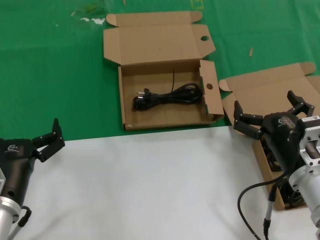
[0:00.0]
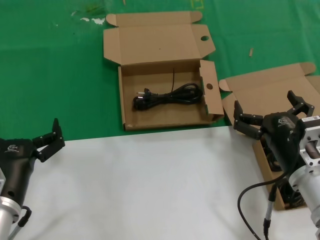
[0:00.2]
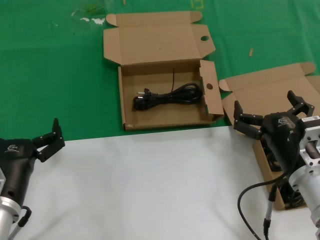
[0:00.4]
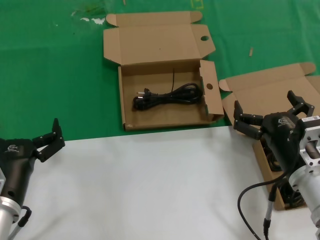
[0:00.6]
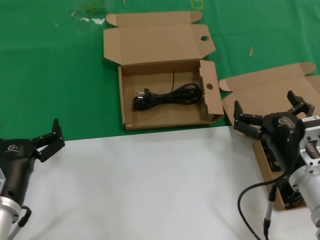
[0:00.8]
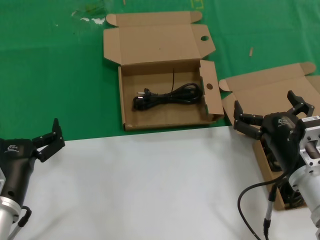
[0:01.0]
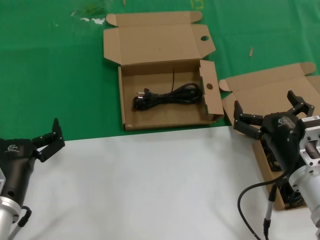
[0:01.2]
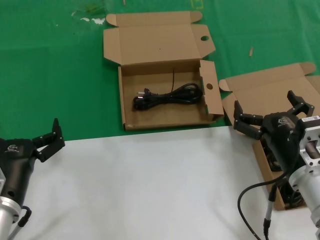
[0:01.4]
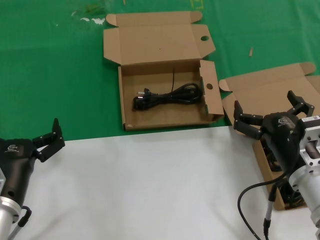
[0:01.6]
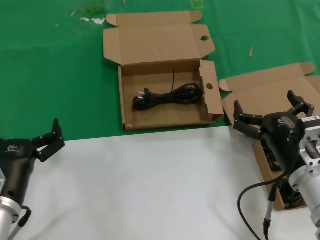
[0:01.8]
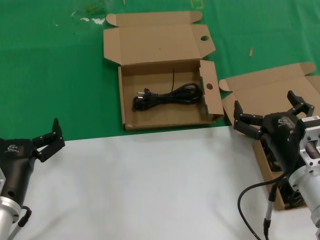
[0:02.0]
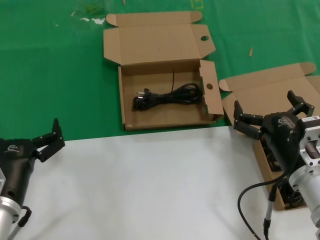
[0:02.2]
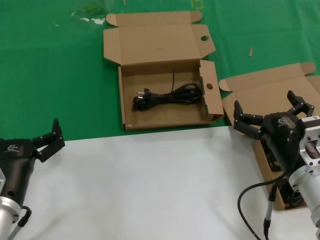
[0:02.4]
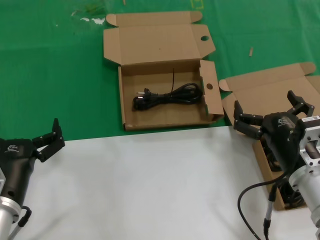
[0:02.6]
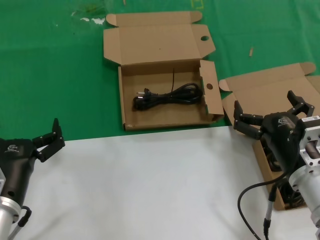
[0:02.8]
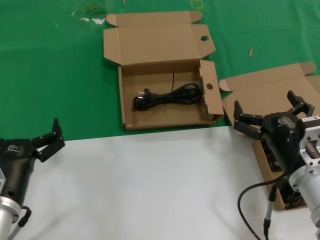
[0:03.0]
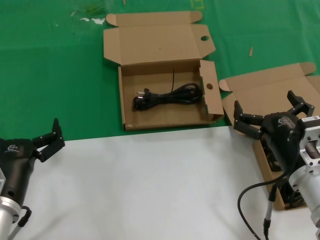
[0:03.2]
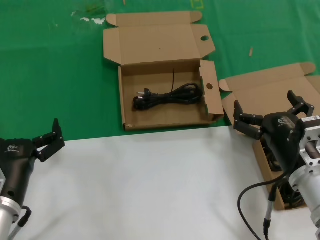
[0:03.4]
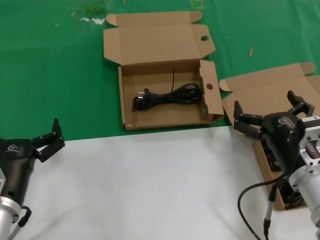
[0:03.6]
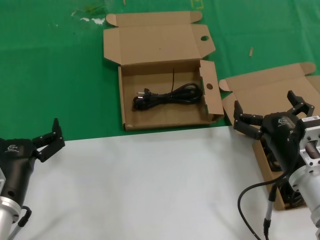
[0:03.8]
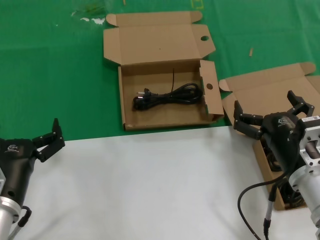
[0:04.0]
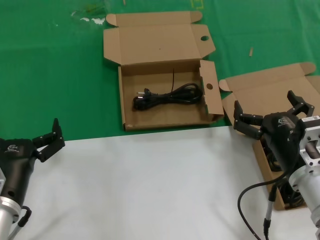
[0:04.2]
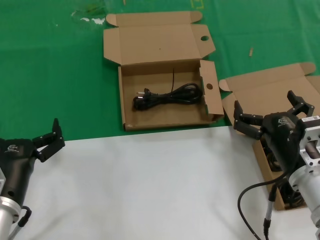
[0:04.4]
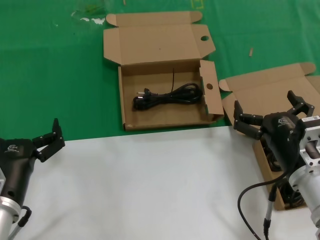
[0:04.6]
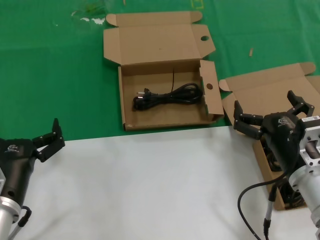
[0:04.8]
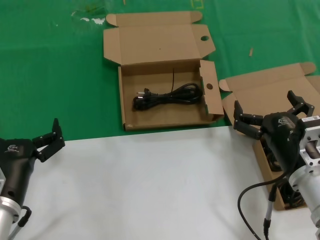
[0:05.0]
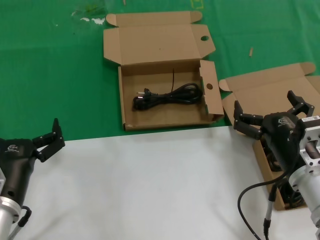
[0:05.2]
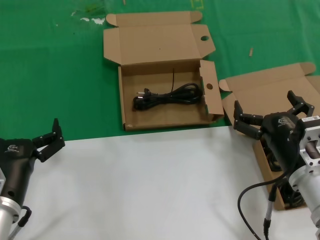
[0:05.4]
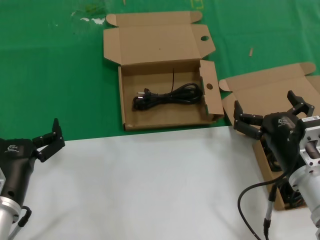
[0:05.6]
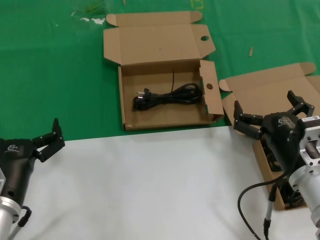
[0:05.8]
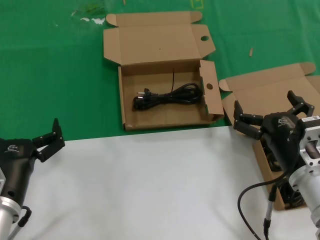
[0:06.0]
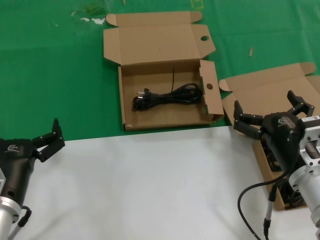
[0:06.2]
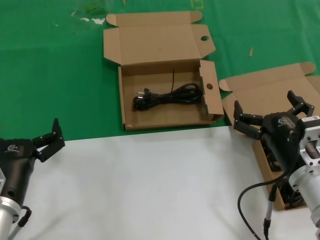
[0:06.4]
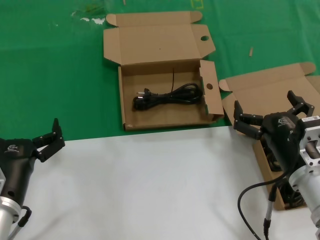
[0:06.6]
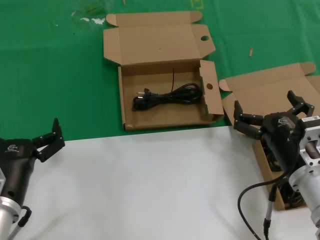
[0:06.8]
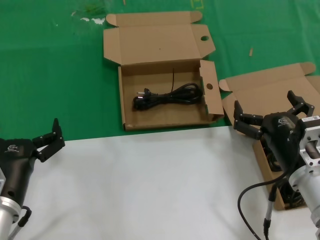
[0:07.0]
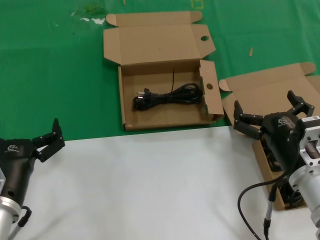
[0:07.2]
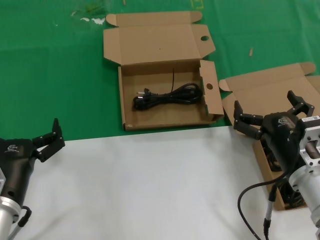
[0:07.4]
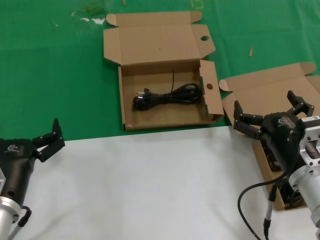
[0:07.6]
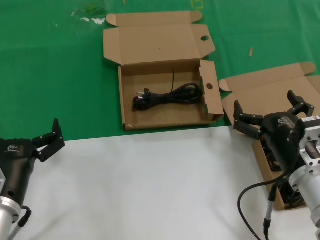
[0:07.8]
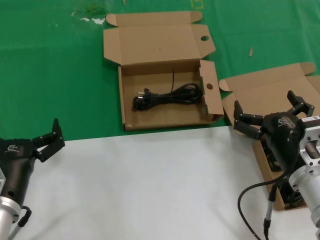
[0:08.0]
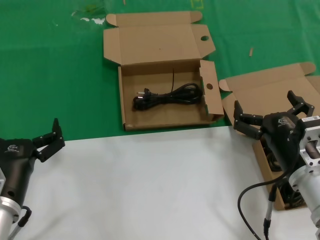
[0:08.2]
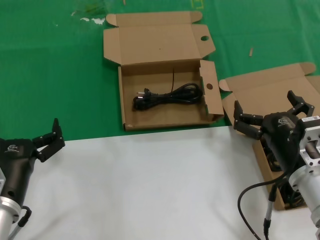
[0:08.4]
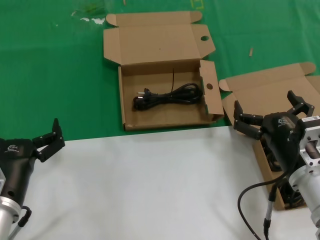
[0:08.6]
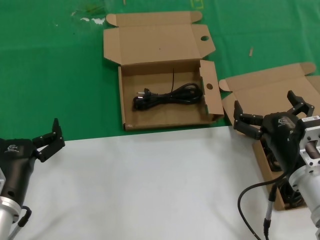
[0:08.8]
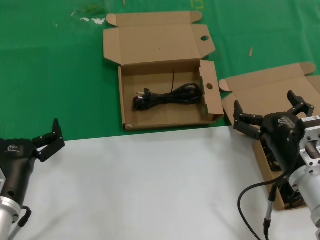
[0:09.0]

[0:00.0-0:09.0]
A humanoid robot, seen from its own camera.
Task of the whole recording: take the parts from the box containing them and put them into an empty box.
0:00.0 to 0:09.0: Both hands stay put.

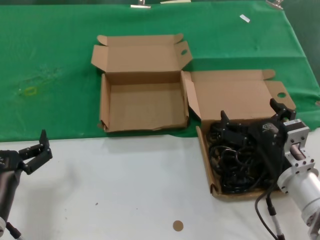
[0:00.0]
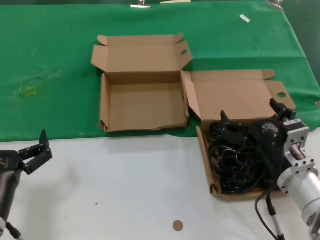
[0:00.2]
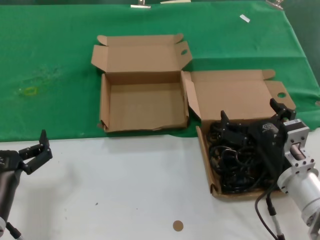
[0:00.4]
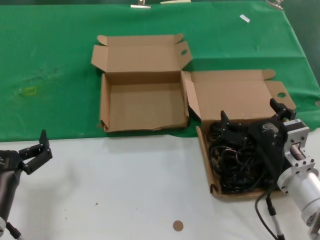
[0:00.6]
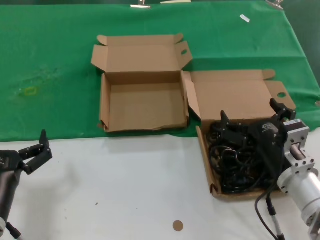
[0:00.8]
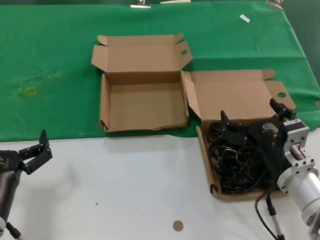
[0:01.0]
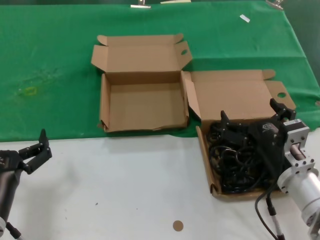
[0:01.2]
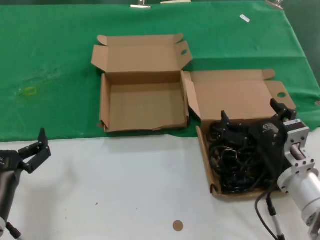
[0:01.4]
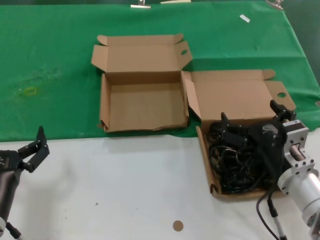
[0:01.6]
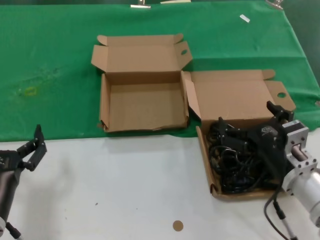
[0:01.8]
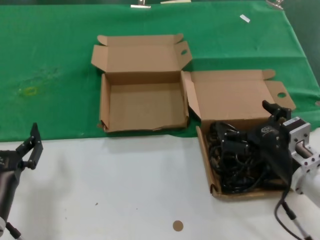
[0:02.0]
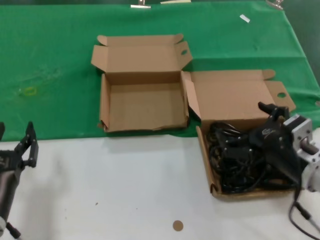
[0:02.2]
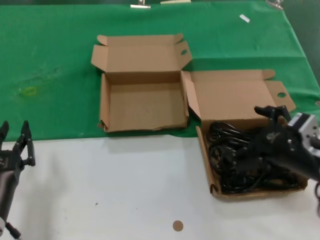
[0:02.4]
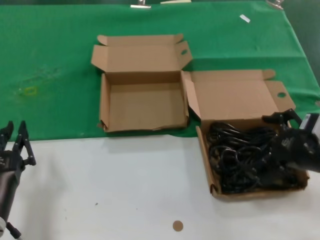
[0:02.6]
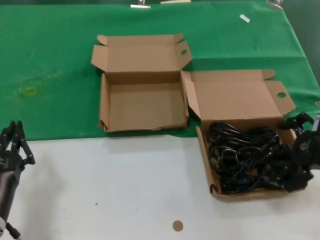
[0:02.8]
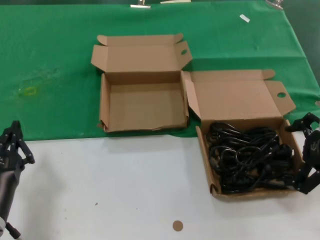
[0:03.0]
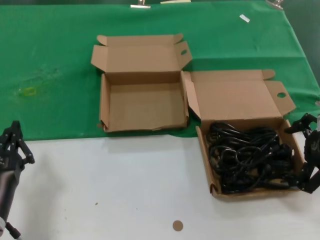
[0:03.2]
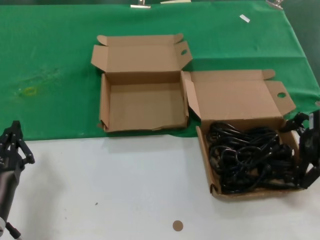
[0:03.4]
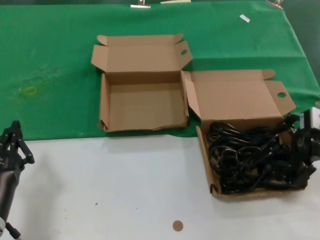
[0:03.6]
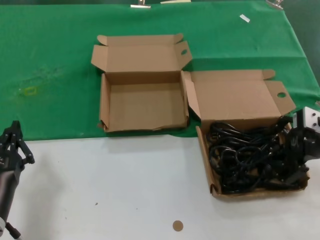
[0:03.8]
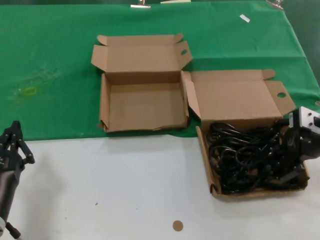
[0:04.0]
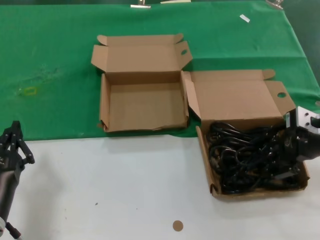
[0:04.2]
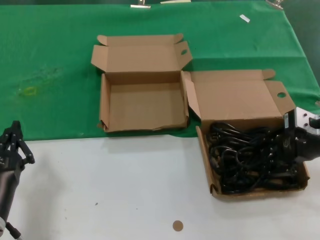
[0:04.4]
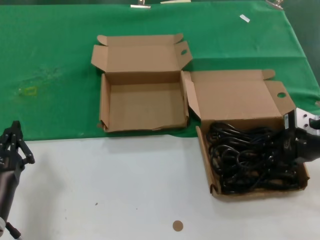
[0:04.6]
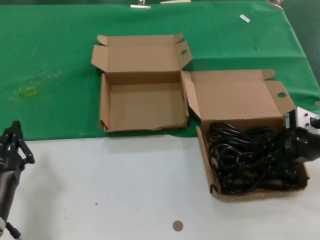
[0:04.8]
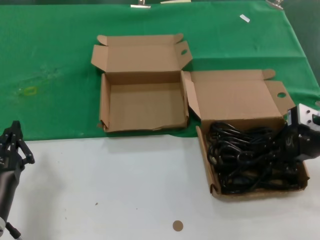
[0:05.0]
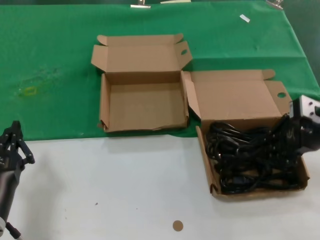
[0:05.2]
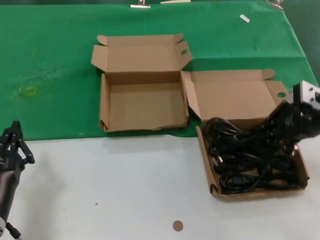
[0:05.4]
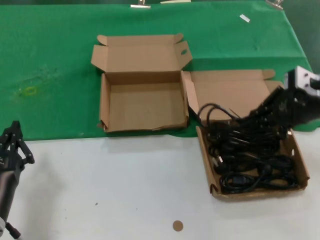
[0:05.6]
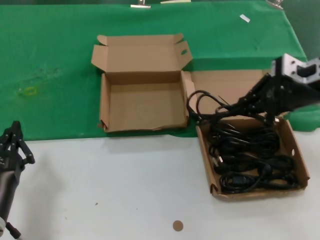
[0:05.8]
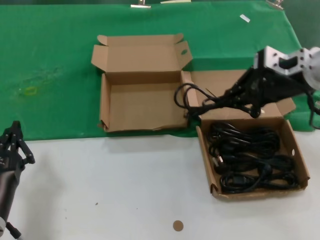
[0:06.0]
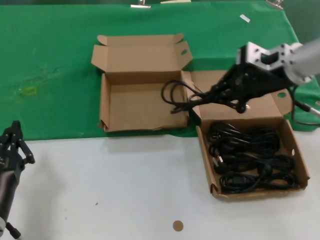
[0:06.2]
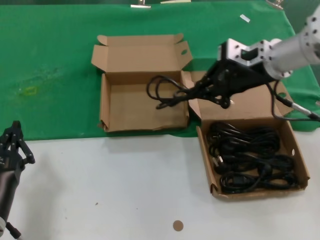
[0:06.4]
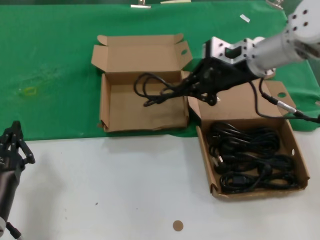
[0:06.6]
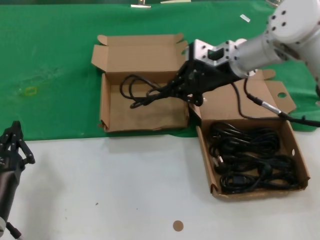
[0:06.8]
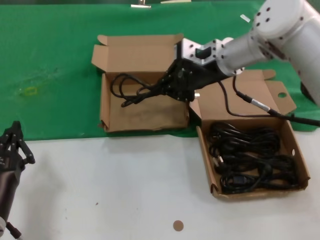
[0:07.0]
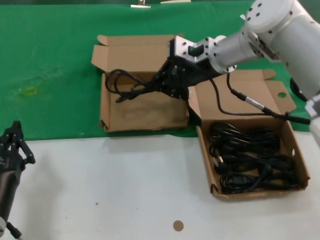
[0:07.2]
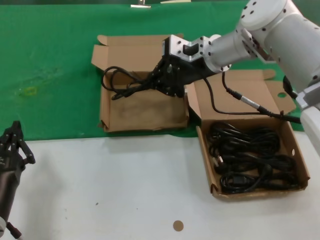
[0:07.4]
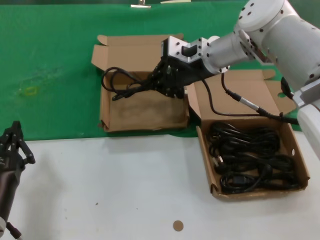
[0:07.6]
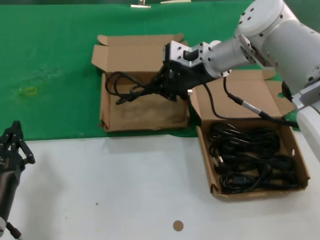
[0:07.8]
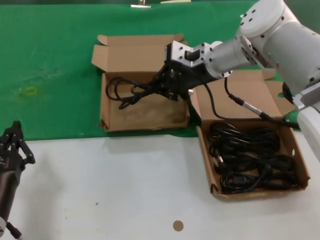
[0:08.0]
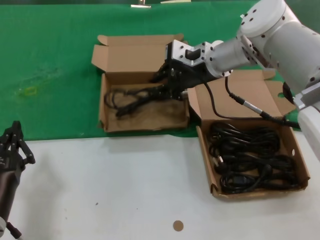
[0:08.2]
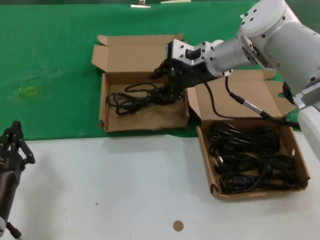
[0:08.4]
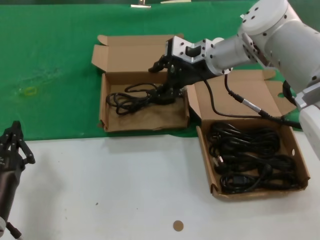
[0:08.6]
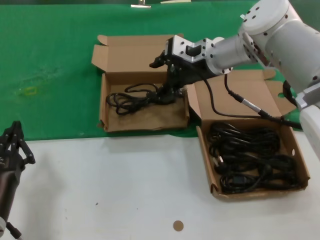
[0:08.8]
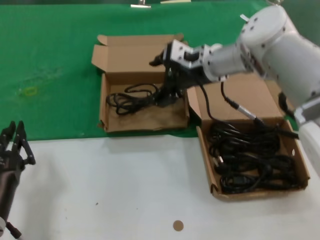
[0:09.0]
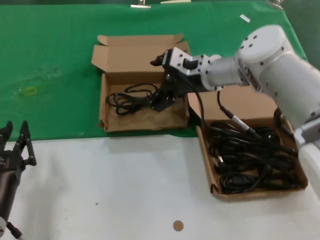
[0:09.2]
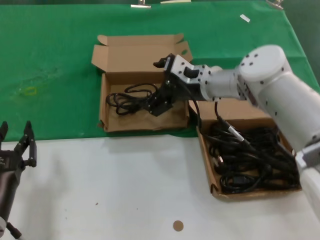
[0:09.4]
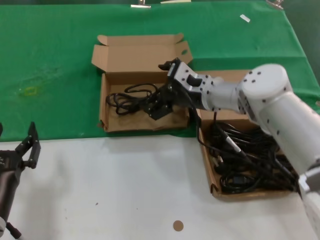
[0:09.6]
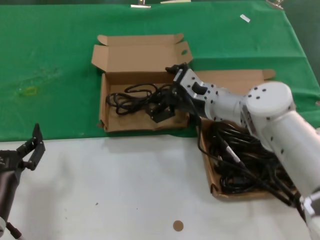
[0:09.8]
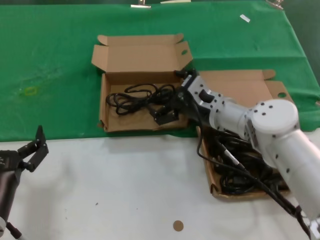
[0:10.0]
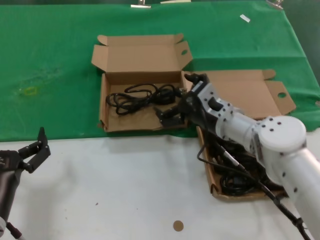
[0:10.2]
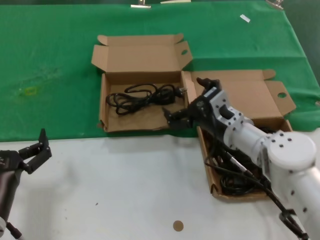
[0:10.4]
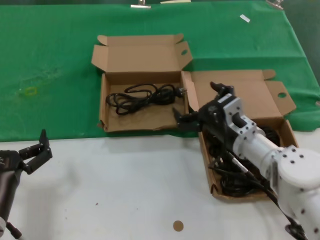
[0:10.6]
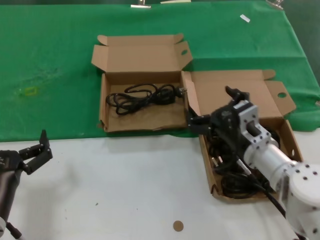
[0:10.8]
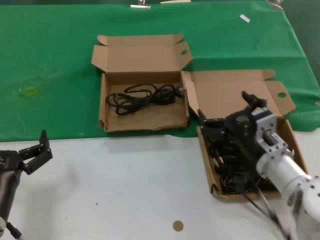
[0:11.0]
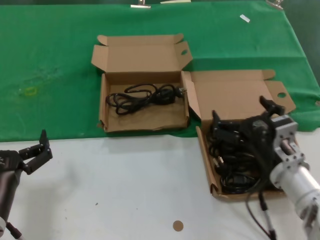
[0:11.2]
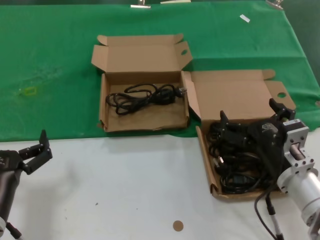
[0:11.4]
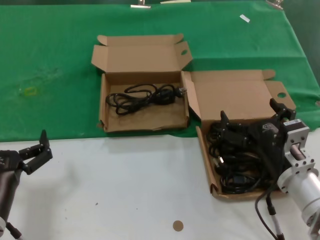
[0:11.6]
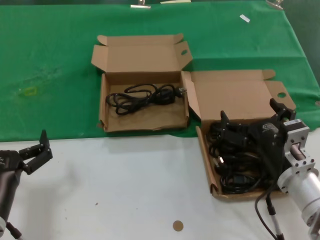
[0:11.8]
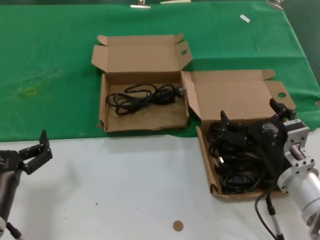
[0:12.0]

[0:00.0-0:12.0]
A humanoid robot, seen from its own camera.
Task of the whole recording: take the parts from the box containing them and put them into an empty box.
Step, 0:00.0 to 0:04.6: Grasp the data cable.
Step, 0:04.8 to 0:08.2: Place the data cable in the another box.
0:00.0 to 0:01.6: The two hands keep their place.
0:01.6 to 0:03.0: The right hand travels upward and to the right by approximately 20 cm.
0:03.0 to 0:04.4: The right hand travels forward by roughly 10 cm.
0:04.4 to 0:06.0: The right hand shifts approximately 10 cm upward and forward.
0:06.0 to 0:07.6: The right hand is displaced to the left and forward by approximately 20 cm.
0:07.6 to 0:09.0: There are only small adjustments of the hands.
0:09.0 to 0:10.4: The right hand shifts some 20 cm downward and backward.
0:10.4 to 0:12.0: The right hand heads backward, covering roughly 15 cm.

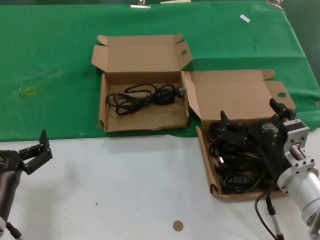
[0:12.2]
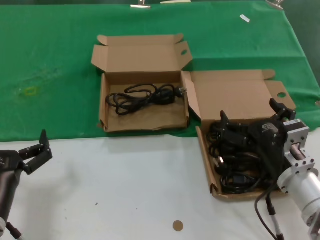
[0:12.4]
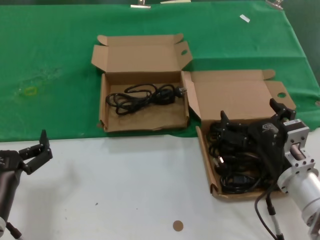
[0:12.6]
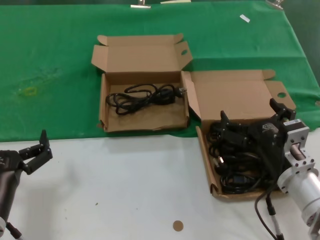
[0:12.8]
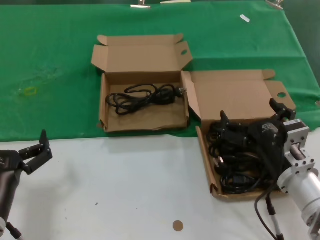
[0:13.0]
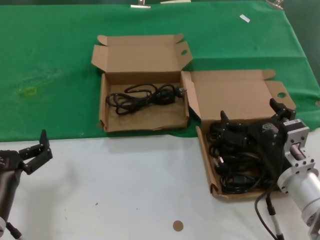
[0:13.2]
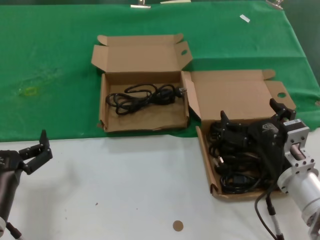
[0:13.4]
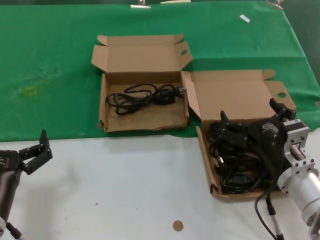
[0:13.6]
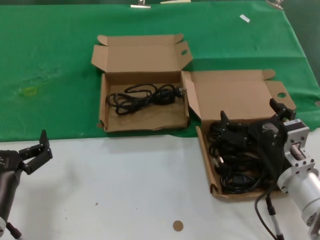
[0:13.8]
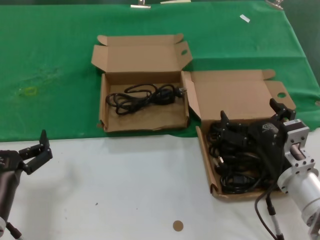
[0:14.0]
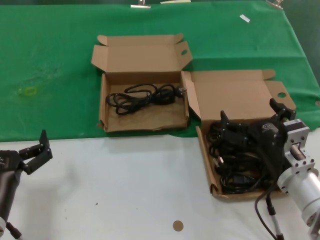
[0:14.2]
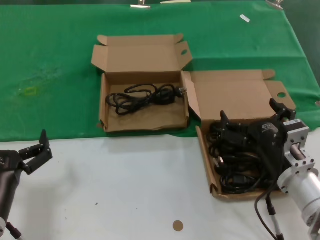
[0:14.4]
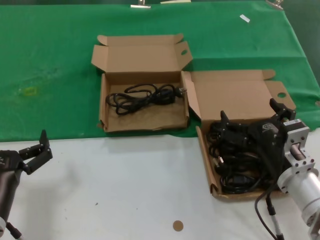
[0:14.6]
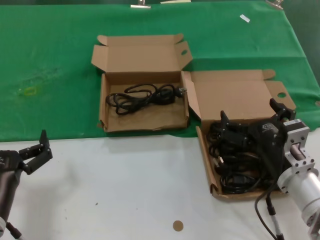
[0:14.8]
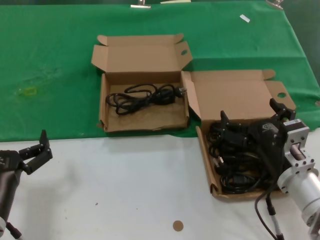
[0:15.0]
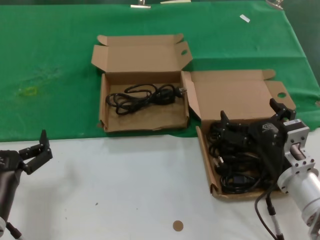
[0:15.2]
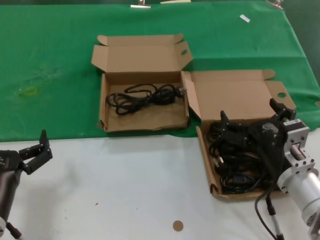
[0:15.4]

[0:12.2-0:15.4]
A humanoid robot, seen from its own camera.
Task of the whole recording: take the parts from the box containing them and put them into an empty box.
0:12.2 to 0:15.4: The two hands keep their place.
